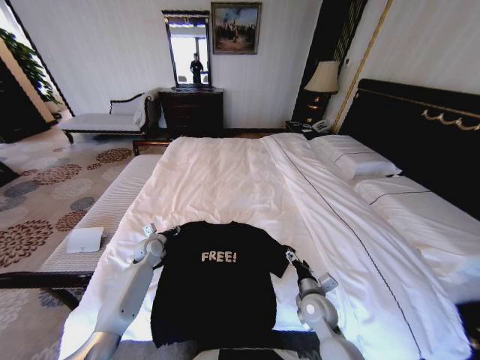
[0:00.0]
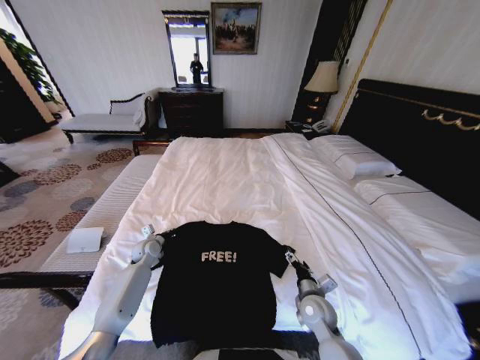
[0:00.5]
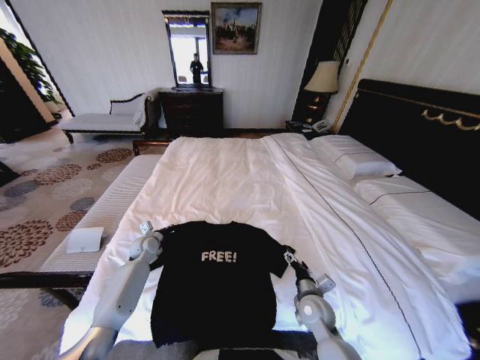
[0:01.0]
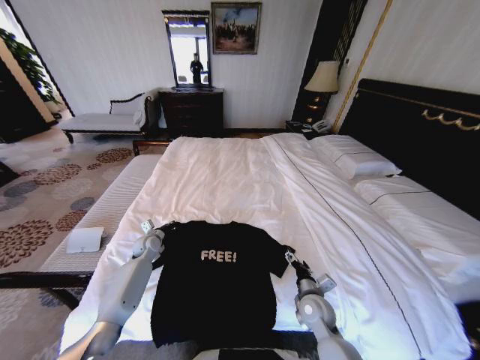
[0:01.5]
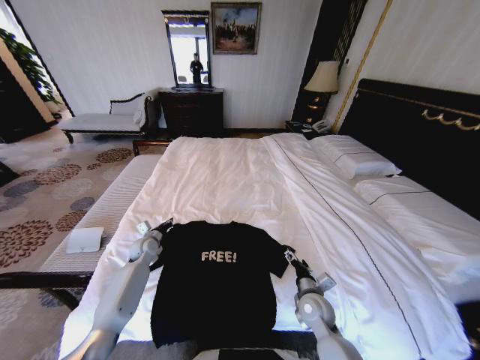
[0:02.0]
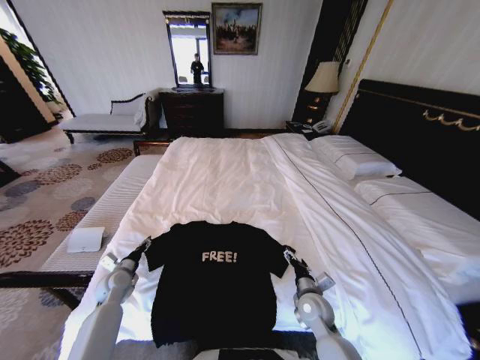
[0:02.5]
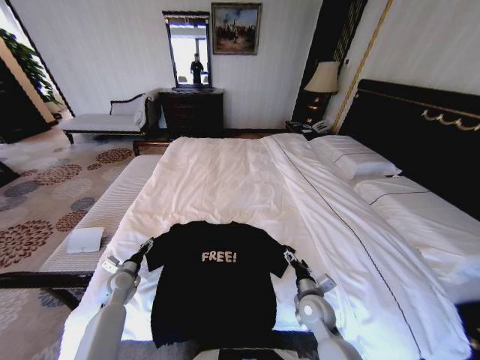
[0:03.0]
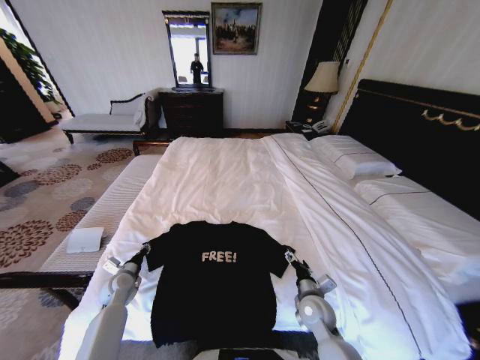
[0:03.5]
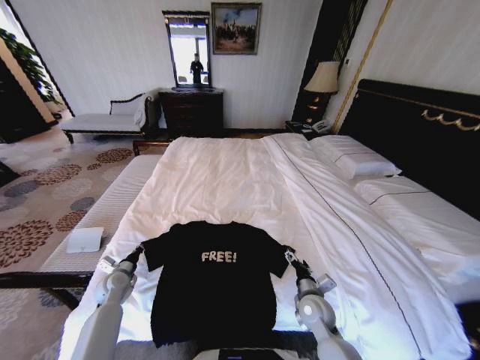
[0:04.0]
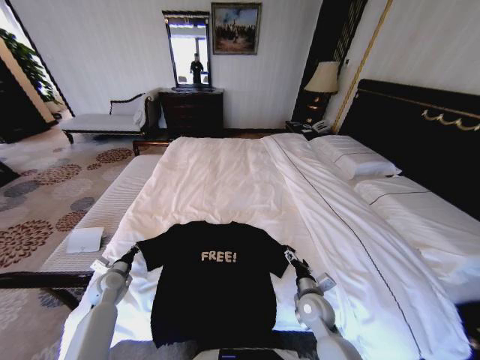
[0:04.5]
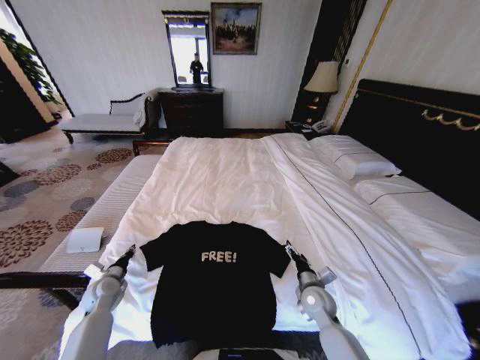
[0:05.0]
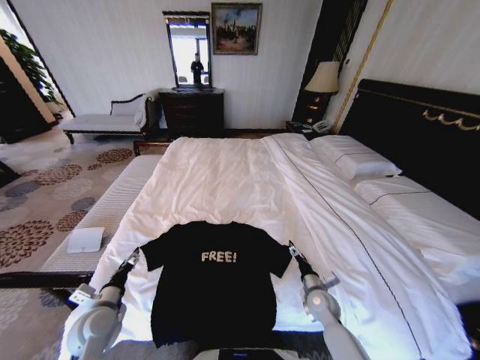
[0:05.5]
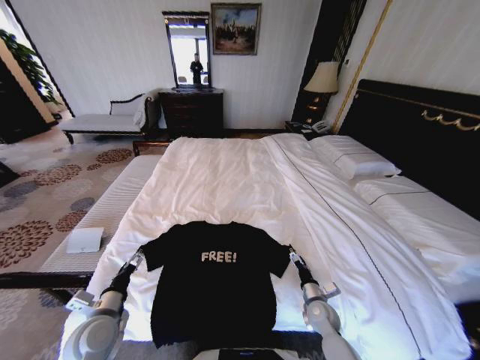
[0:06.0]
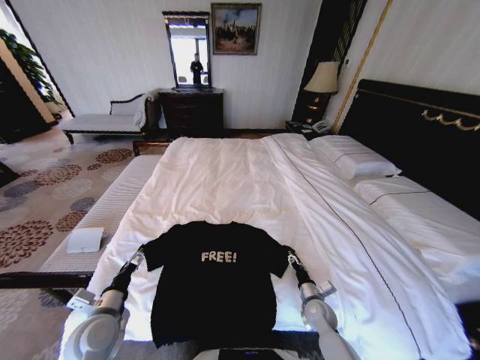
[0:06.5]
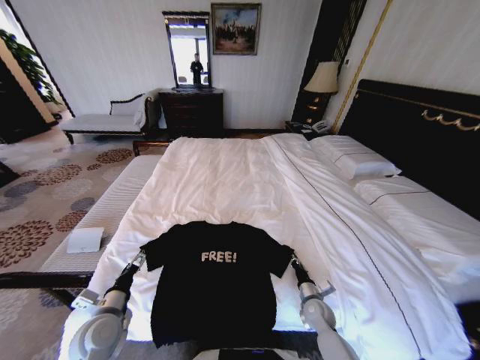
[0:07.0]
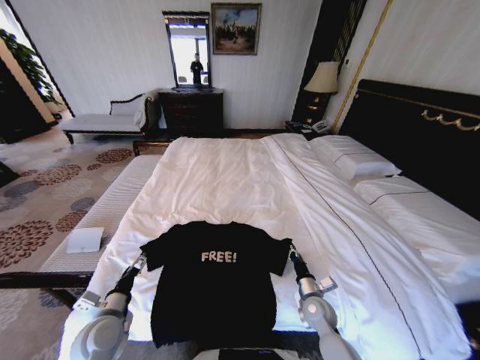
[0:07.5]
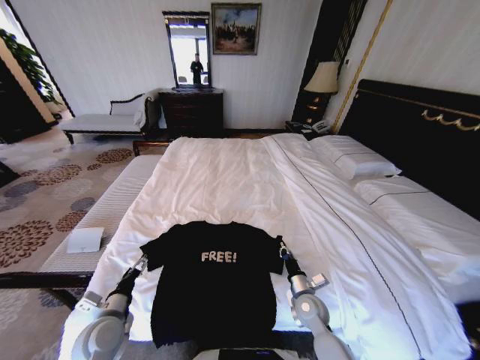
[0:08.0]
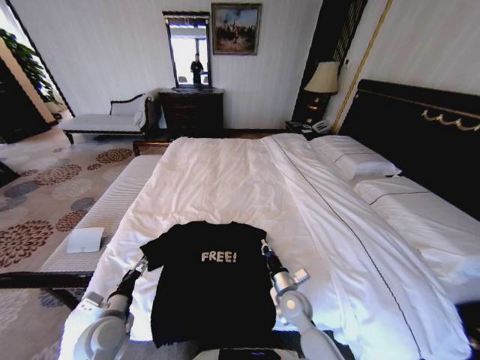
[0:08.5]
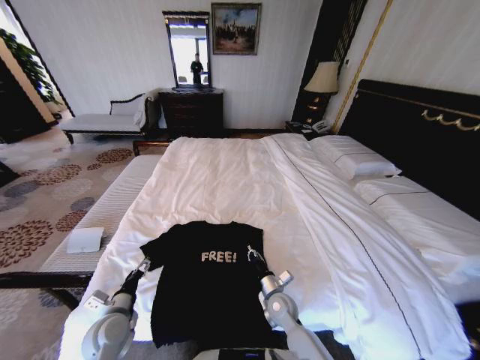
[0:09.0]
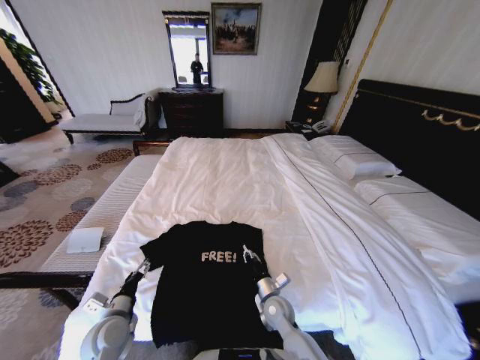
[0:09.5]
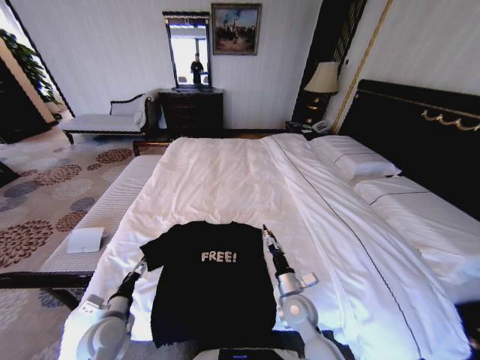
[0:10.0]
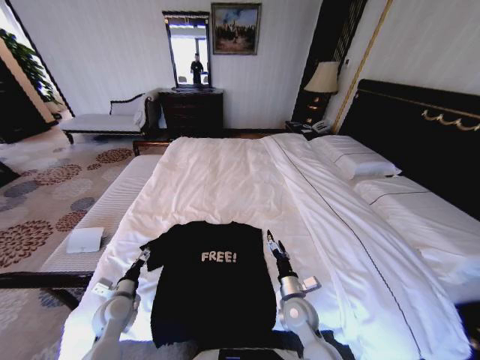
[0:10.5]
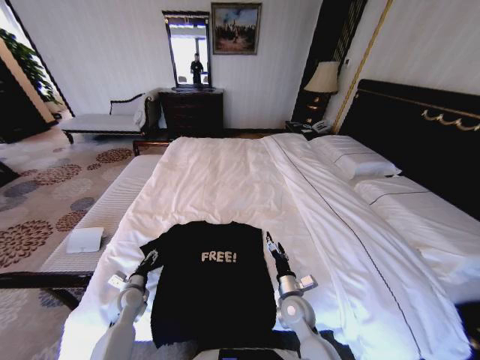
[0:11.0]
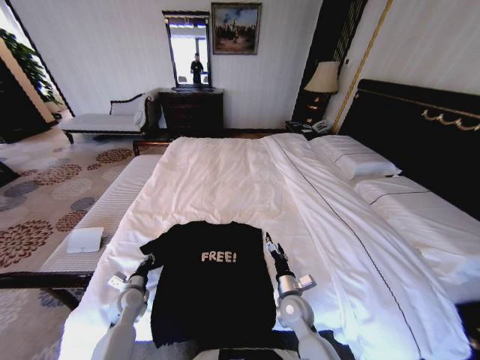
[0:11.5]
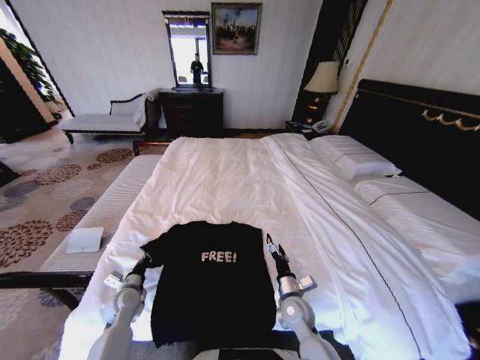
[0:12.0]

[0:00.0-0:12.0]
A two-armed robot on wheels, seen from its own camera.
Task of the whole recording: Fold the clothes on the bed.
0:00.0 to 0:02.0: The grippers make only small movements.
0:02.0 to 0:04.0: The left gripper moves backward and to the left, some 15 cm, and opens, then closes once more.
0:04.0 to 0:06.0: The left gripper heads backward, upward and to the right, covering approximately 20 cm, and opens its fingers; the right gripper travels downward and to the right by approximately 10 cm.
0:06.0 to 0:08.0: The right gripper moves to the left, approximately 5 cm, and closes.
0:08.0 to 0:10.0: The right gripper shifts approximately 5 cm to the left, and opens.
0:10.0 to 0:12.0: The left gripper is displaced forward and downward by about 10 cm, and closes its fingers.

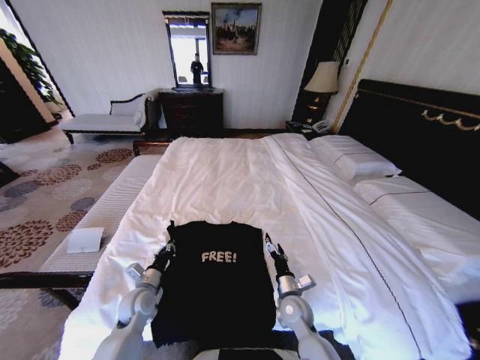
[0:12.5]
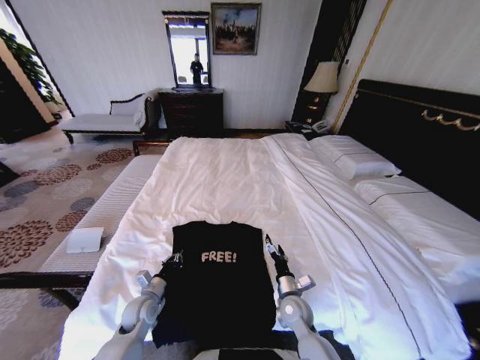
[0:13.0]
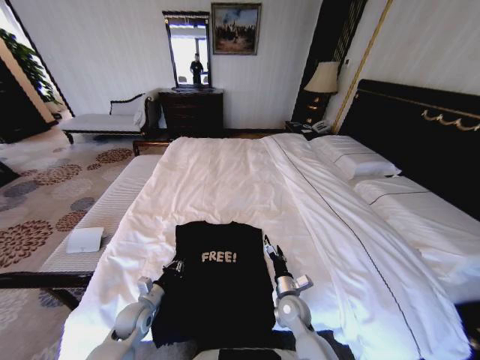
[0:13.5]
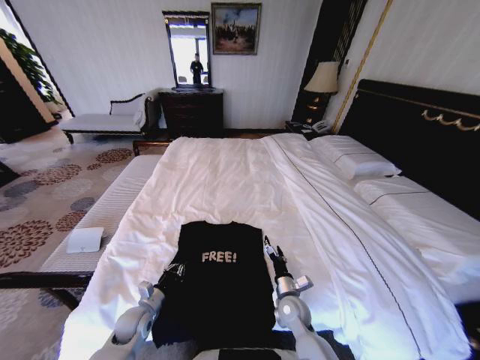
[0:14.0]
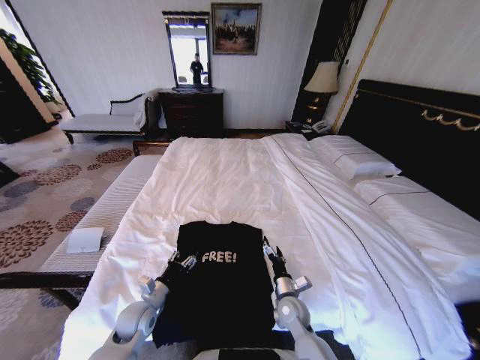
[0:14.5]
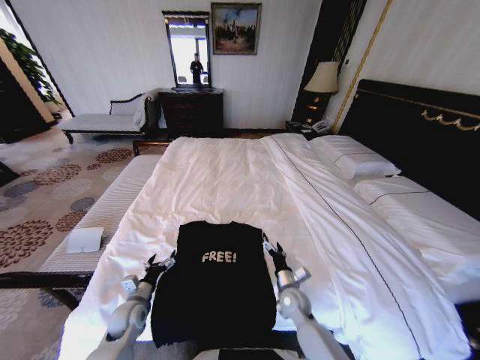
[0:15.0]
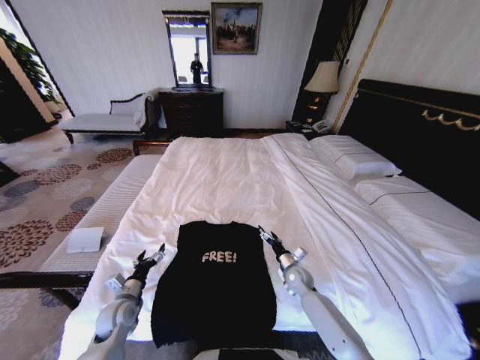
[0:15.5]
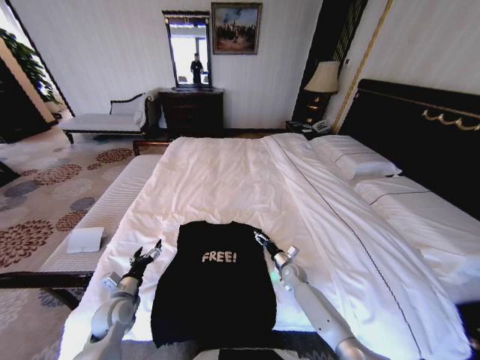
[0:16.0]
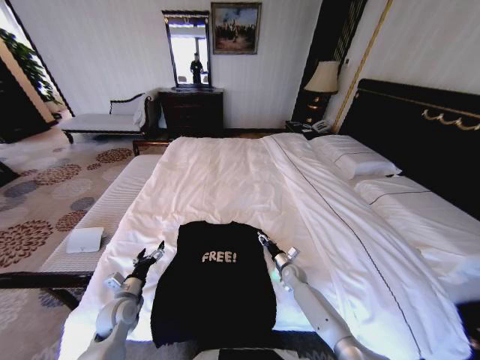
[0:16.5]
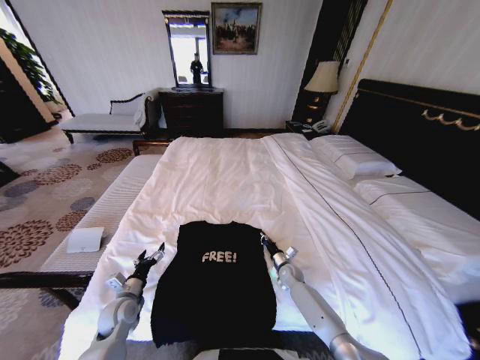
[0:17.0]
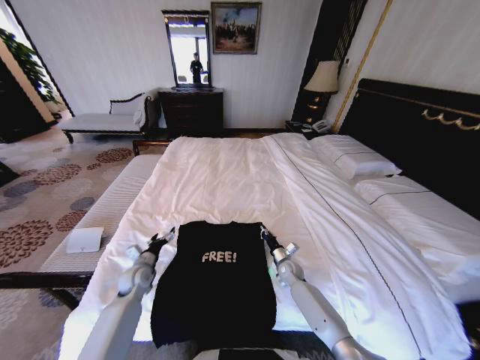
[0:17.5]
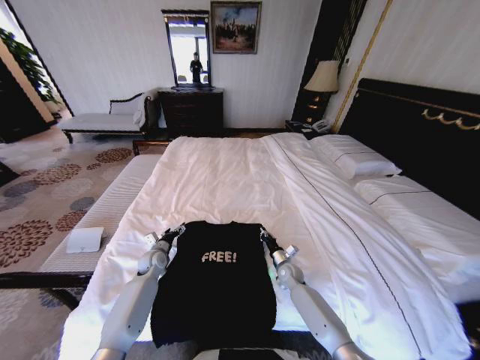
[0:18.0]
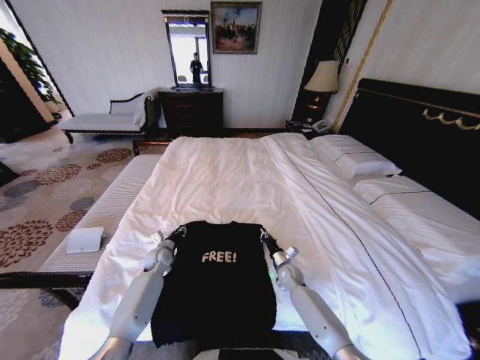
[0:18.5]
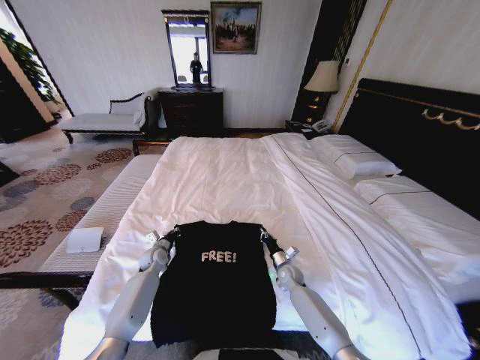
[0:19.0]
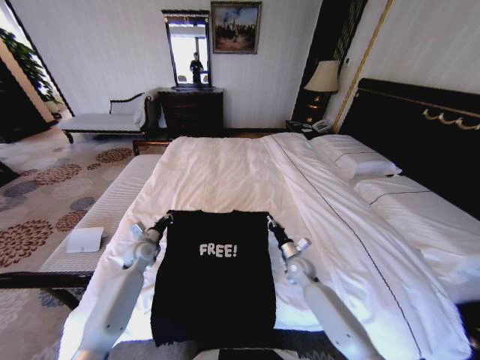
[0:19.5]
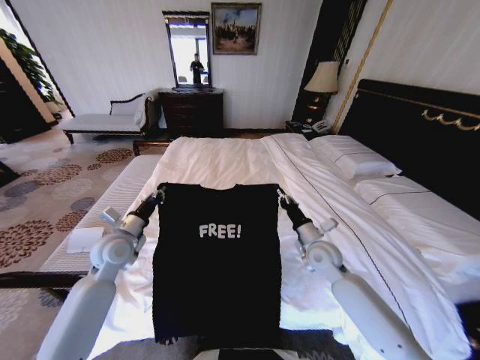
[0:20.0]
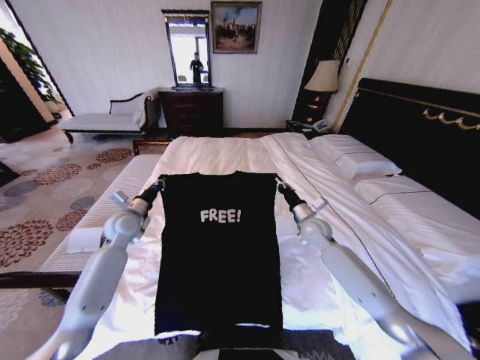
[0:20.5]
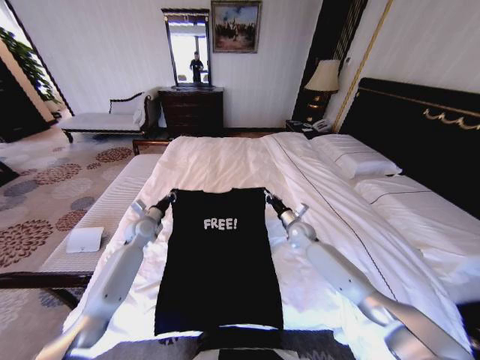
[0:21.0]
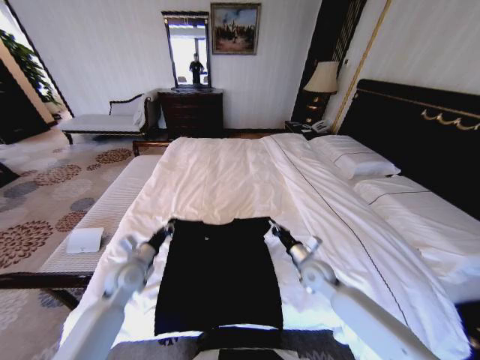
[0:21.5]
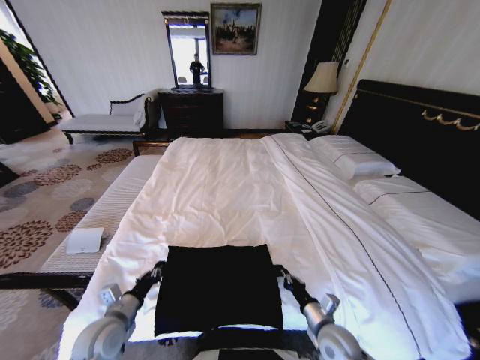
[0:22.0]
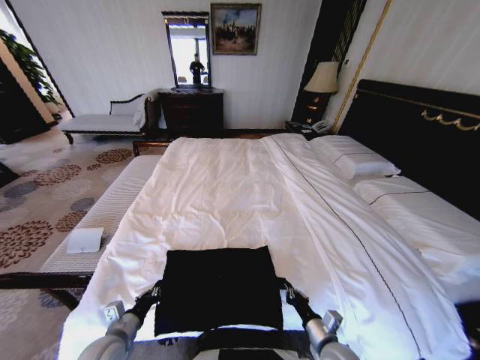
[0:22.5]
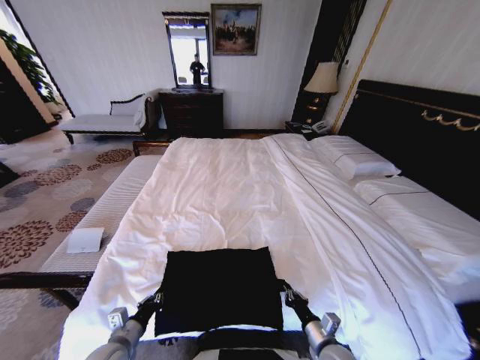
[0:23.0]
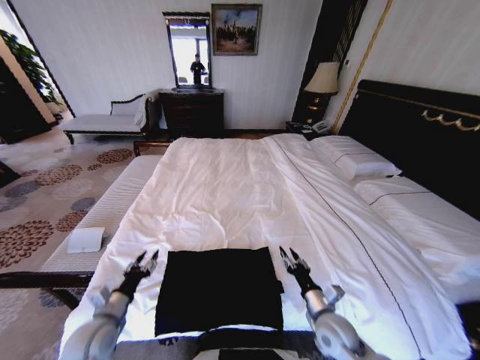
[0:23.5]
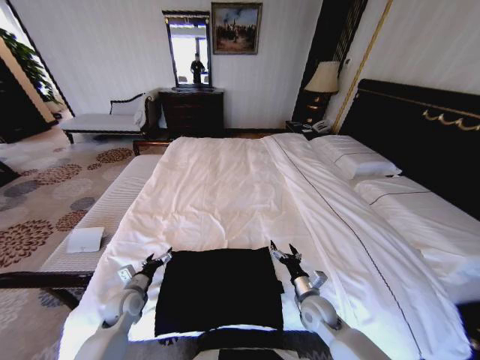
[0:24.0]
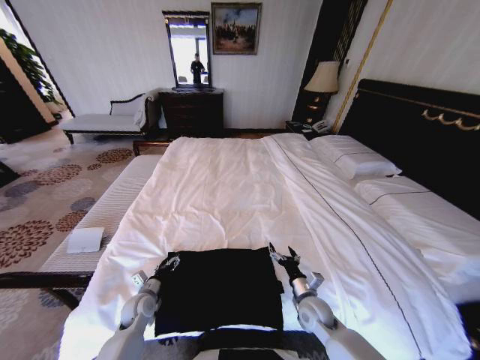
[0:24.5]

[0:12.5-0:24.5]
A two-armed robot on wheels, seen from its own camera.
Task of the whole recording: Fold the clothes on the bed.
0:12.5 to 0:14.5: The left gripper opens its fingers.
0:14.5 to 0:16.5: The left gripper heads to the left, covering some 5 cm, and opens its fingers. Meanwhile the right gripper moves forward, downward and to the right, about 20 cm, and closes.
0:16.5 to 0:18.5: The left gripper shifts about 20 cm forward, and closes. The right gripper closes its fingers.
0:18.5 to 0:20.5: The left gripper heads upward, covering about 20 cm, and closes its fingers. Meanwhile the right gripper travels upward and forward by some 20 cm.
0:20.5 to 0:22.5: The right gripper is displaced backward by approximately 35 cm, while the left gripper heads backward and downward, covering some 35 cm.
0:22.5 to 0:24.5: The left gripper shifts roughly 15 cm forward and downward, and opens its fingers; the right gripper goes roughly 10 cm forward, and opens.

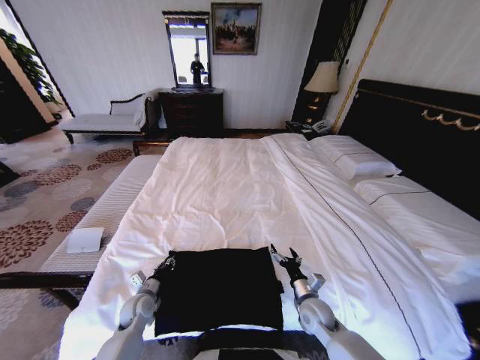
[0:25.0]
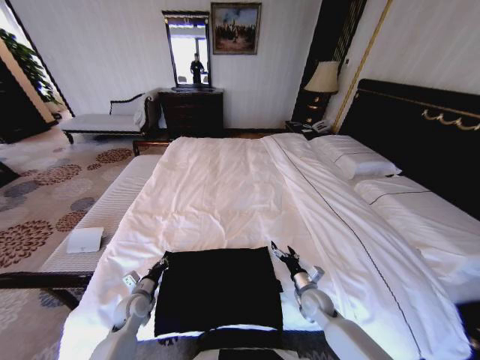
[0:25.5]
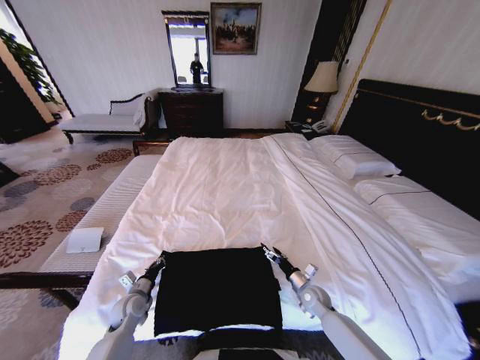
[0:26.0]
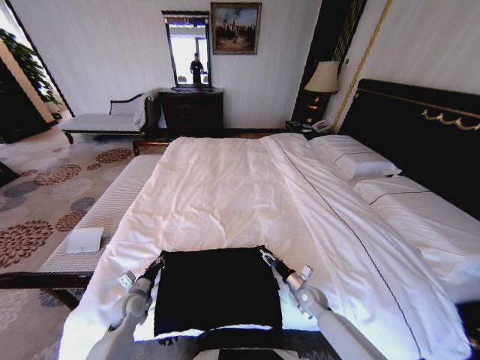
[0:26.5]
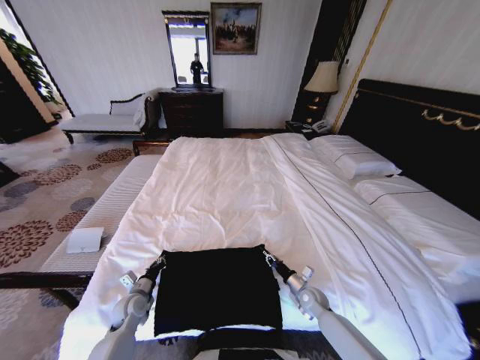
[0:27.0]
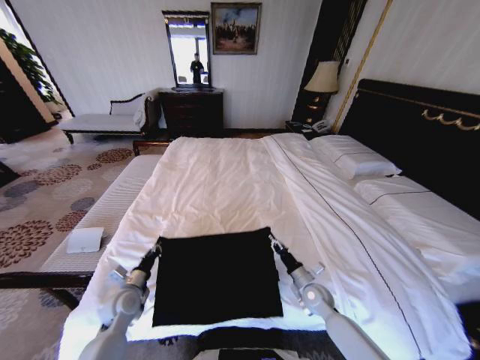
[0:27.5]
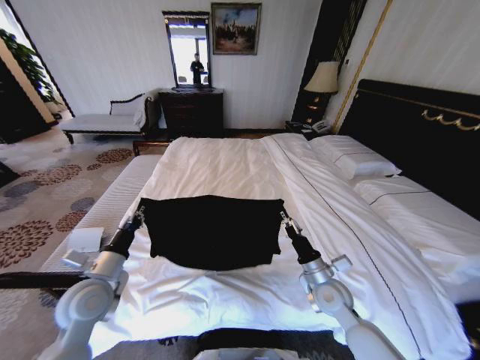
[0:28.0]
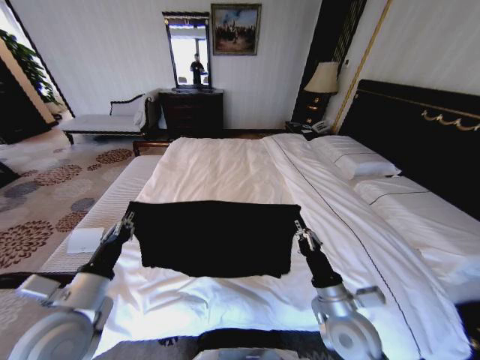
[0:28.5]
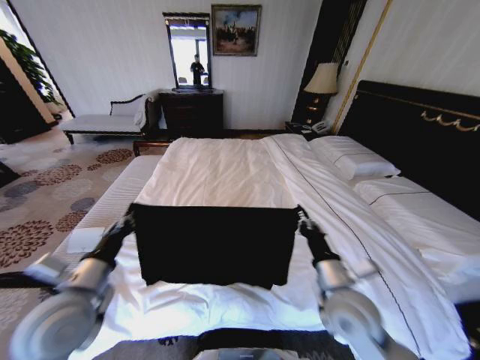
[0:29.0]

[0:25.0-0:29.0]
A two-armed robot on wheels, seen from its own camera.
Task of the whole recording: Fold the clothes on the bed.
0:25.0 to 0:27.0: The right gripper goes approximately 10 cm downward and forward, and closes.
0:27.0 to 0:29.0: Both grippers travel together upward, approximately 25 cm.
